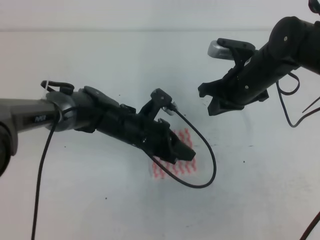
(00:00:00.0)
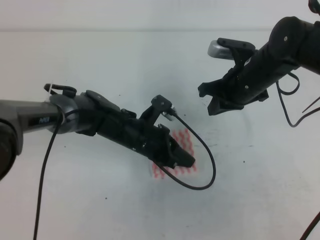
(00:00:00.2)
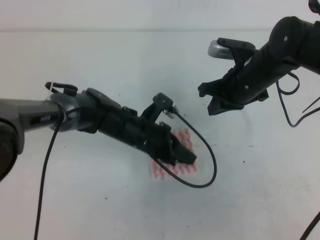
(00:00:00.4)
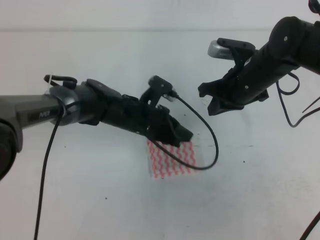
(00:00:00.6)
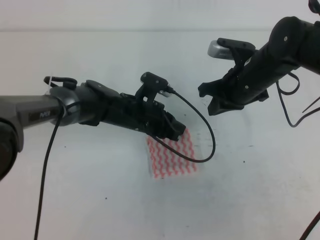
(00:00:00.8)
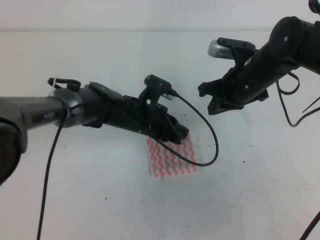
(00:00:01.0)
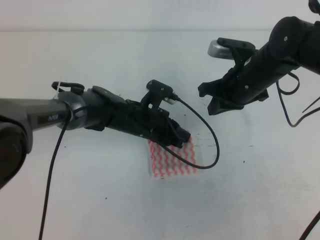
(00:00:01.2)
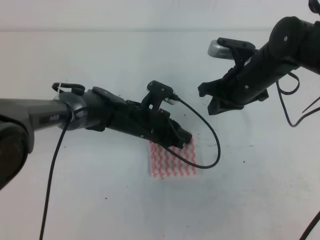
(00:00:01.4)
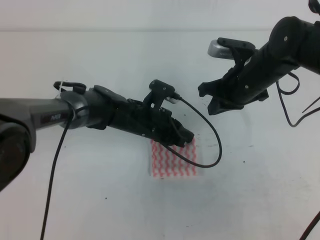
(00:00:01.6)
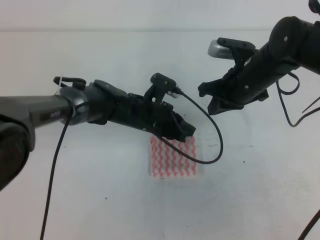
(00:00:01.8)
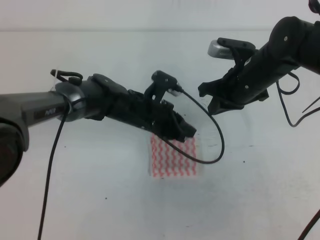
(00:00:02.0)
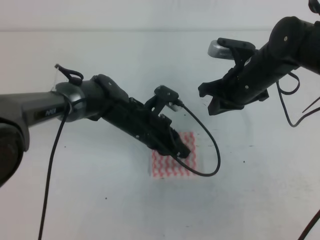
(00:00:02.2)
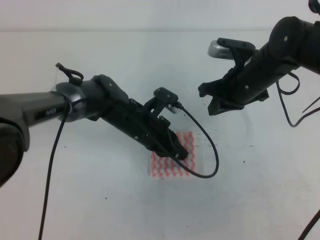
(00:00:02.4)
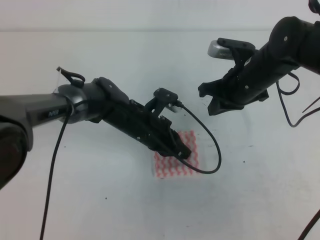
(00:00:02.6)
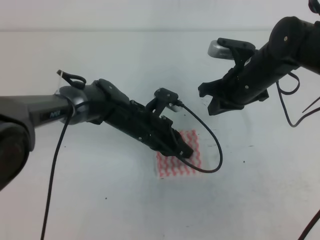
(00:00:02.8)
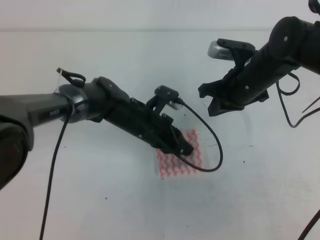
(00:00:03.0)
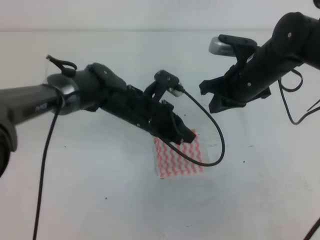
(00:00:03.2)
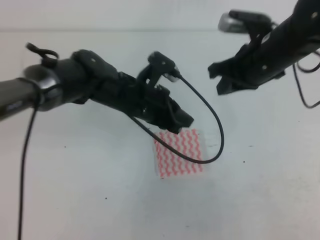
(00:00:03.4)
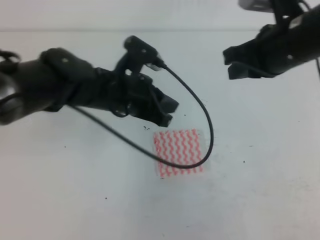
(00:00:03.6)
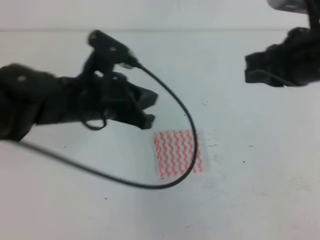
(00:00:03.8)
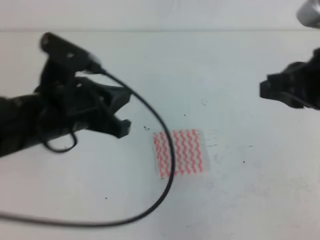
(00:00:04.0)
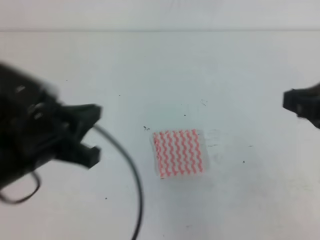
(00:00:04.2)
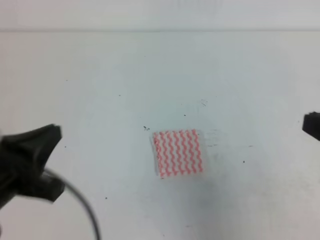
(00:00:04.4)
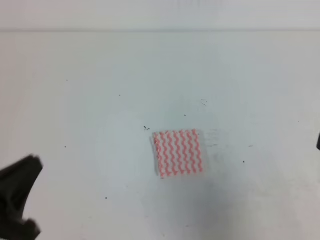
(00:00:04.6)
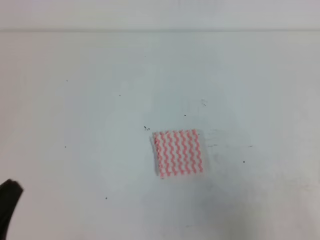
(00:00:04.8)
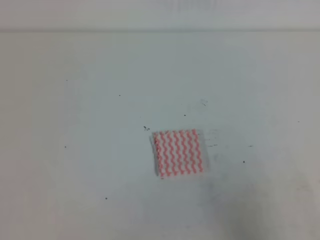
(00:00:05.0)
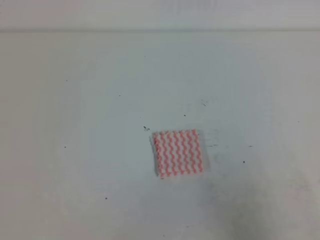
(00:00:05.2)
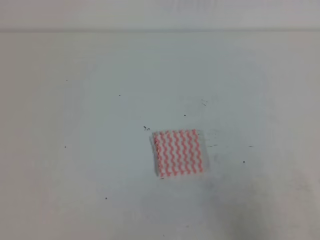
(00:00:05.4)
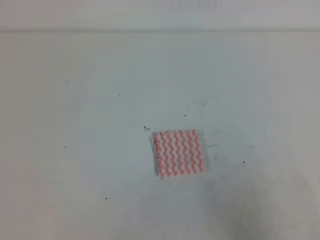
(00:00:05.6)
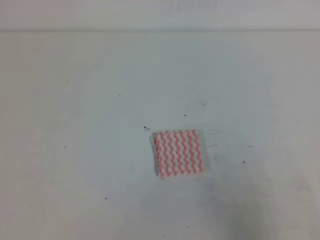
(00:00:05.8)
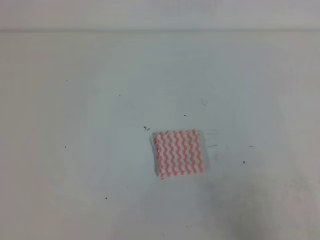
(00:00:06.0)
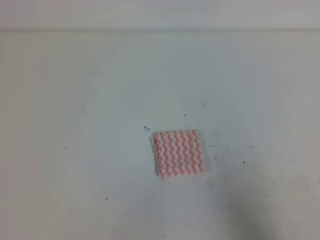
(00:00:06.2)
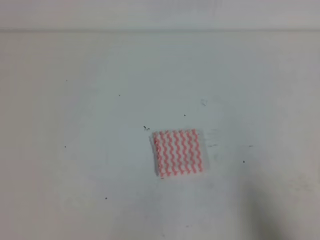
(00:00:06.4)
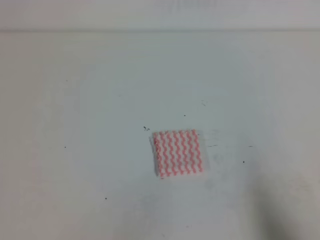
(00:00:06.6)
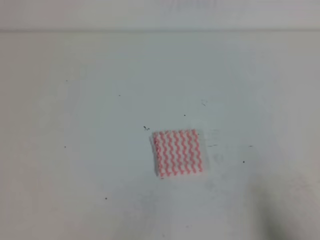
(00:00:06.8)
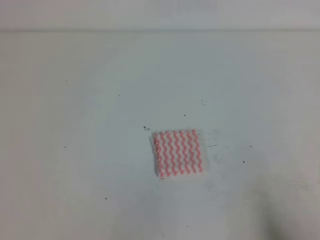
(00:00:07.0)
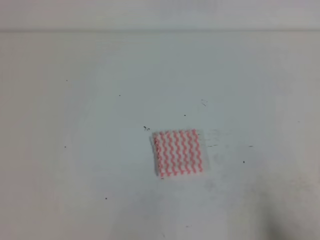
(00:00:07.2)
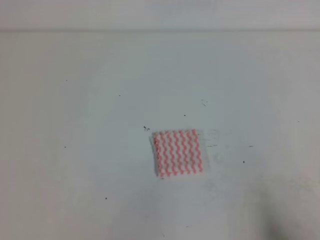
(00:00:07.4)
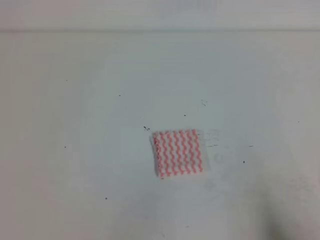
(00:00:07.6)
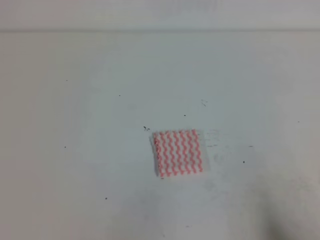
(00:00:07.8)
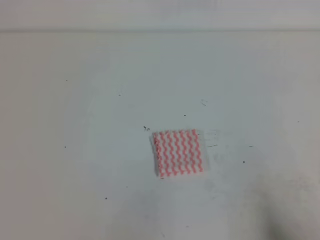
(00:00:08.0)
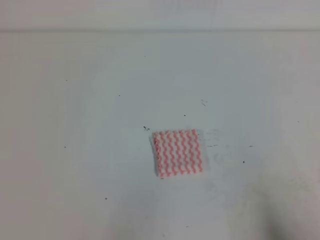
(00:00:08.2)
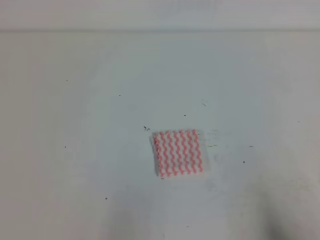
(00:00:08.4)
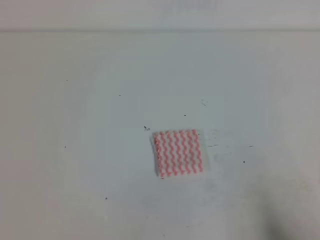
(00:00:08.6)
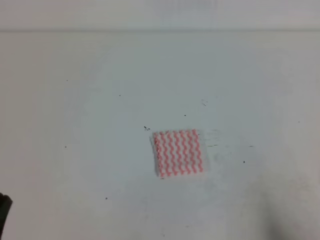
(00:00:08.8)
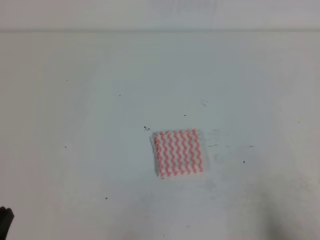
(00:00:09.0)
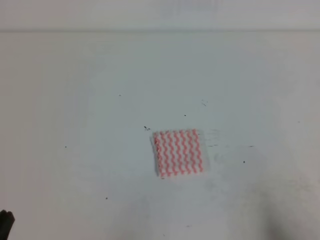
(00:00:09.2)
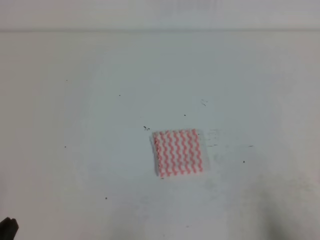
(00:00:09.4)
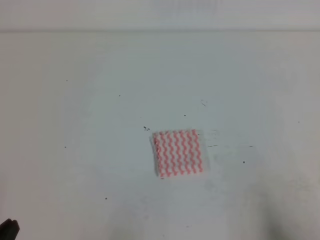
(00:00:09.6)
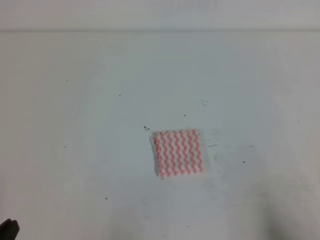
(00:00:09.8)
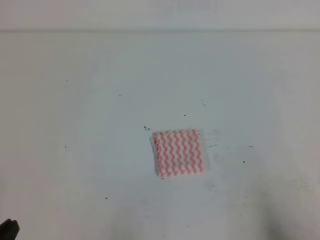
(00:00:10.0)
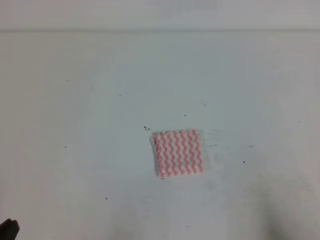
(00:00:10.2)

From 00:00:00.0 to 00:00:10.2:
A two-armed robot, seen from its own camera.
Step, from 00:00:00.0 to 00:00:10.2: Fold the towel.
From 00:00:00.0 to 00:00:03.0: There are only small adjustments of the grippers.
From 00:00:03.0 to 00:00:04.4: The right gripper shifts about 25 cm backward; the left gripper heads backward, to the left and upward, covering some 30 cm.
From 00:00:04.4 to 00:00:05.8: The left gripper travels backward, downward and to the left by some 15 cm. Meanwhile the right gripper travels downward and backward by about 10 cm.
From 00:00:05.8 to 00:00:07.2: The right gripper goes about 10 cm downward.
